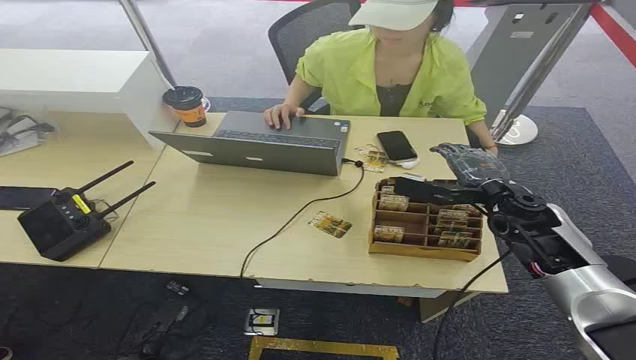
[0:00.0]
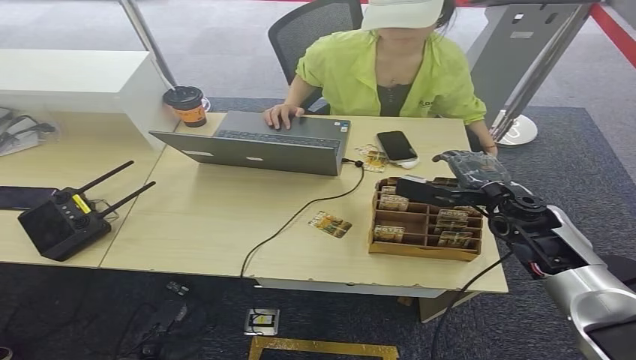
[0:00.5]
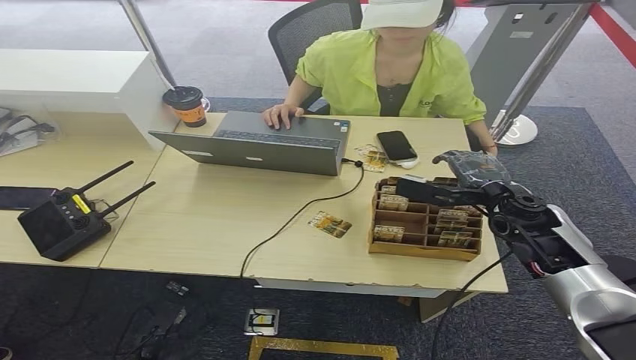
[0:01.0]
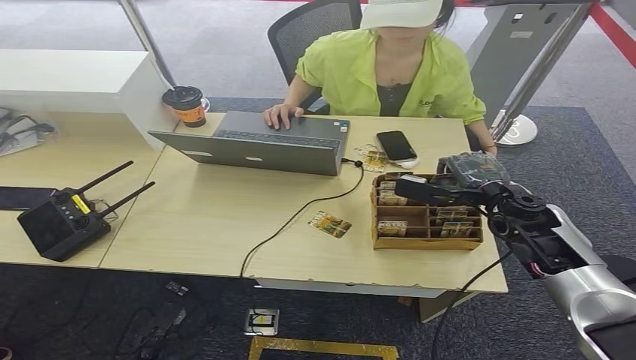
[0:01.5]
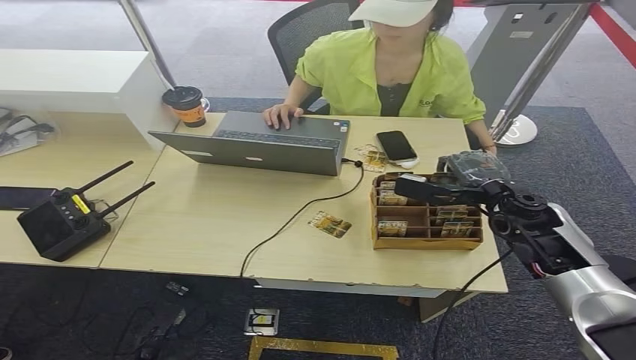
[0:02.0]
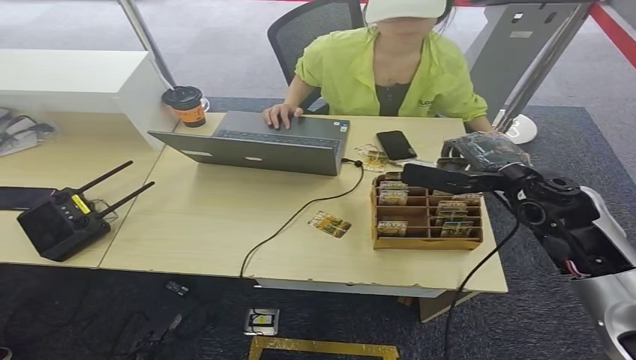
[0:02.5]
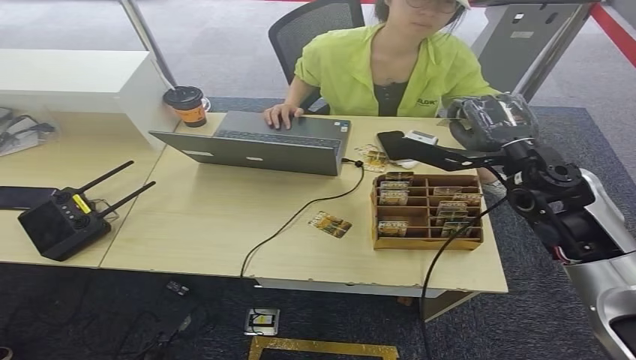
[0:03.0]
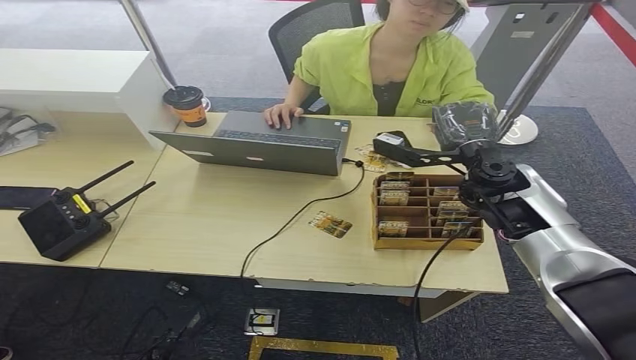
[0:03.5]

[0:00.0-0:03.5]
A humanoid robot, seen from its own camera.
Step, 0:00.0 to 0:02.5: Pick up the room card from the card holder.
Step, 0:03.0 to 0:03.5: Hand the room card to the target.
0:02.0 to 0:03.5: The right hand travels upward and to the left by about 10 cm.

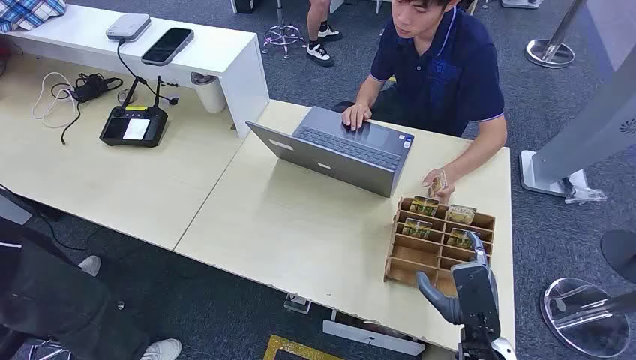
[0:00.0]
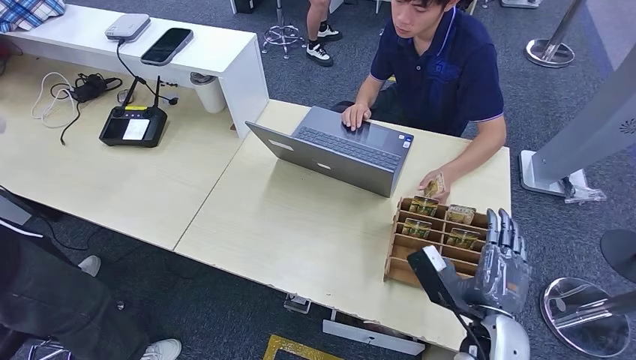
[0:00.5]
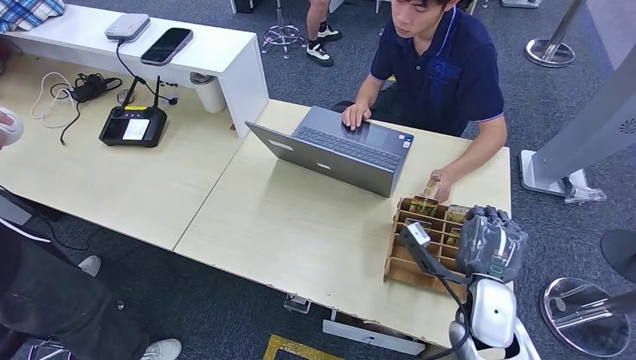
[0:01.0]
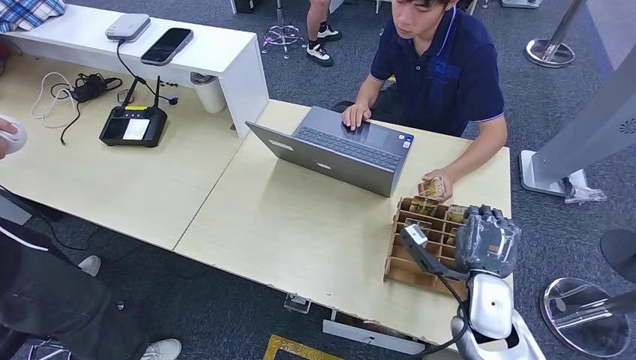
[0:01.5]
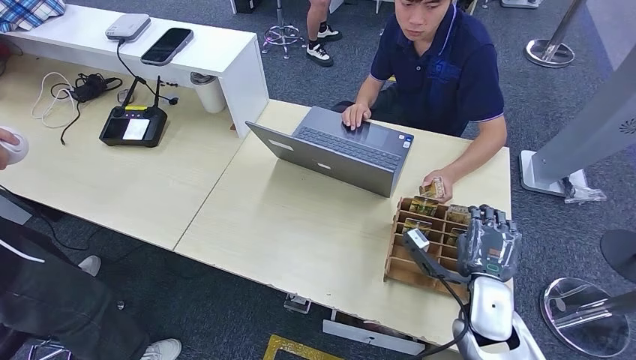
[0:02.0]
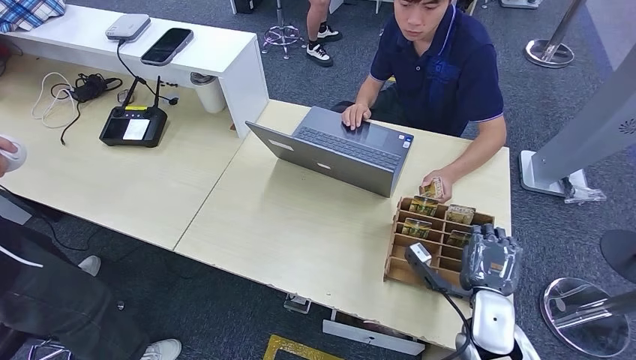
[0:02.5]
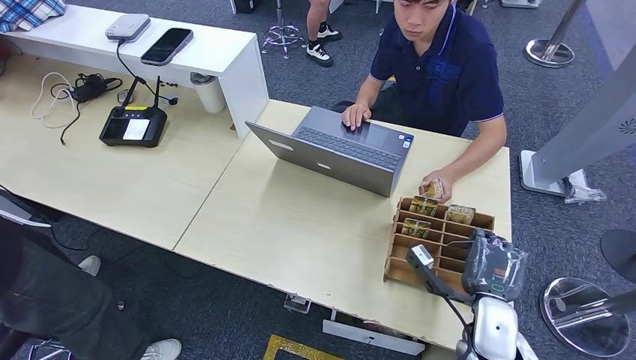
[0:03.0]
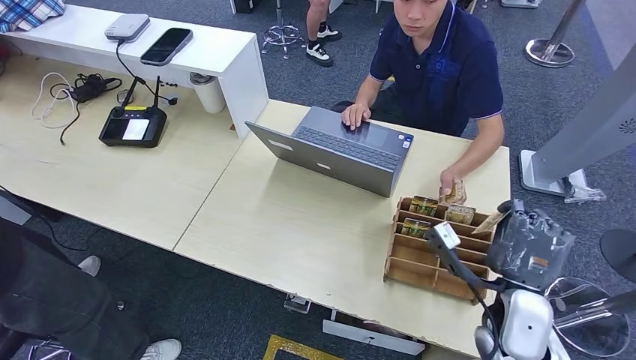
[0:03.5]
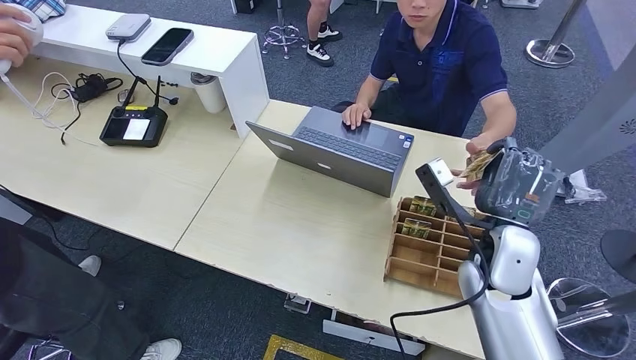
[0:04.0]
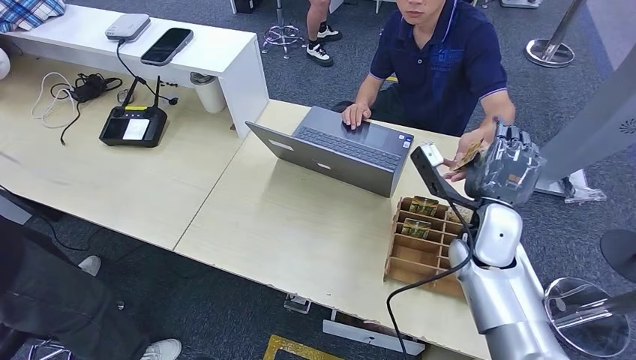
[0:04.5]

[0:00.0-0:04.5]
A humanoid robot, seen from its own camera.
Step, 0:00.0 to 0:03.5: Pick up the room card from the card holder.
Step, 0:04.0 to 0:04.5: Hand the room card to the target.
0:02.0 to 0:04.5: The right hand shifts approximately 15 cm upward and forward.
